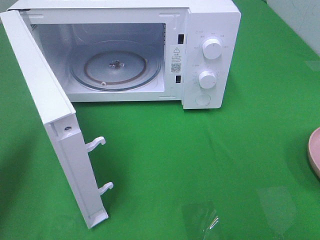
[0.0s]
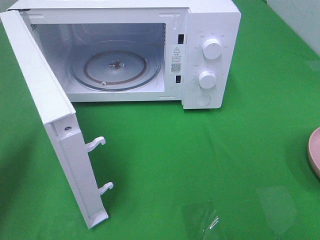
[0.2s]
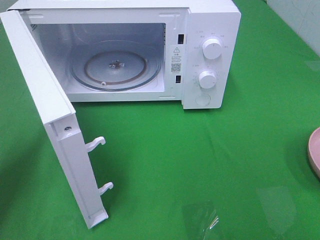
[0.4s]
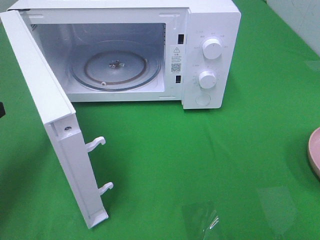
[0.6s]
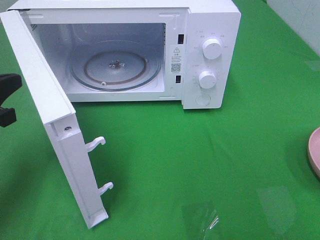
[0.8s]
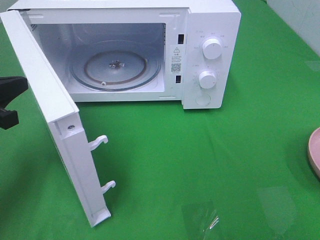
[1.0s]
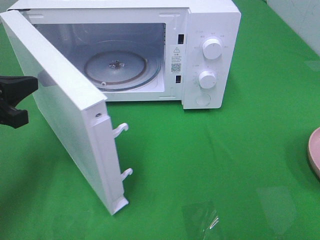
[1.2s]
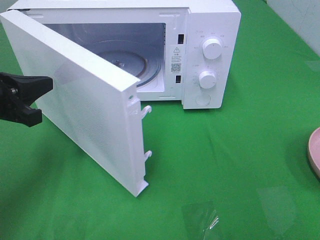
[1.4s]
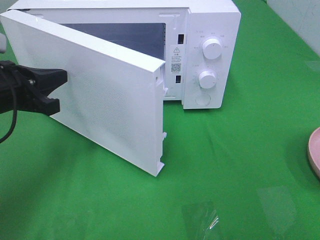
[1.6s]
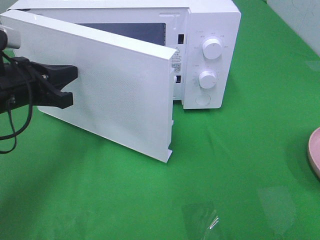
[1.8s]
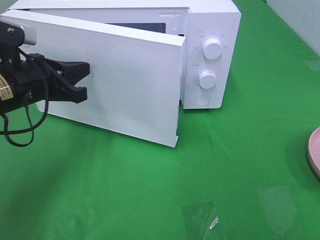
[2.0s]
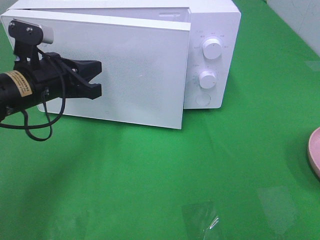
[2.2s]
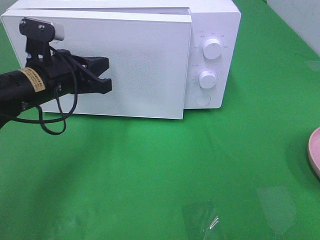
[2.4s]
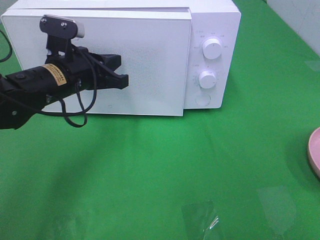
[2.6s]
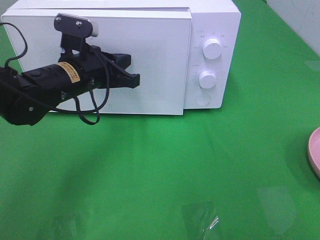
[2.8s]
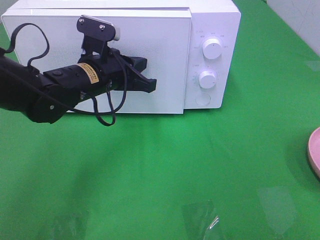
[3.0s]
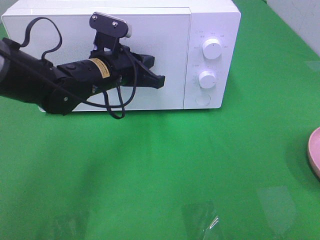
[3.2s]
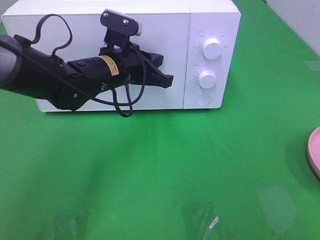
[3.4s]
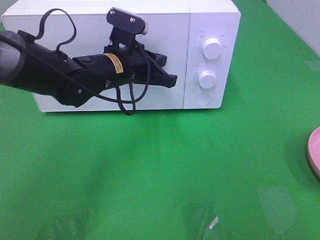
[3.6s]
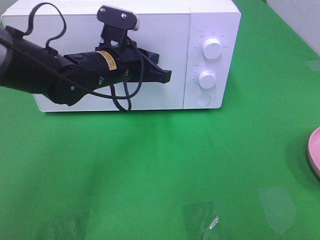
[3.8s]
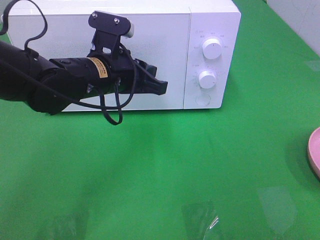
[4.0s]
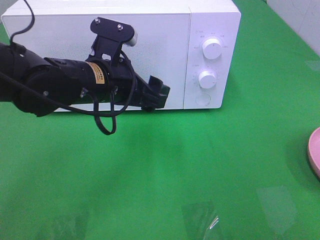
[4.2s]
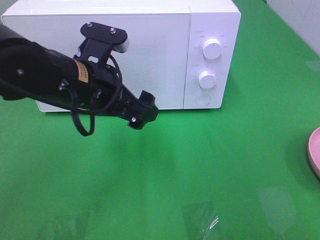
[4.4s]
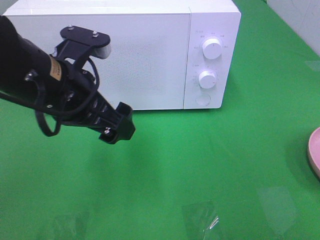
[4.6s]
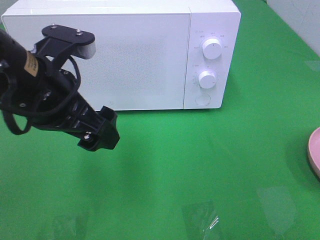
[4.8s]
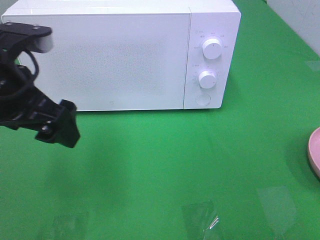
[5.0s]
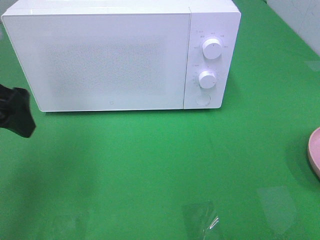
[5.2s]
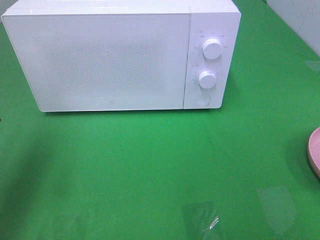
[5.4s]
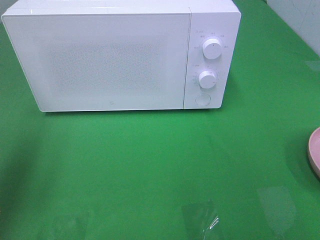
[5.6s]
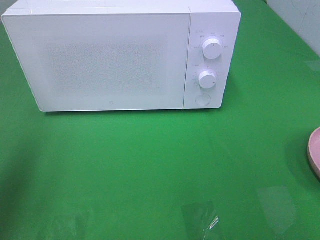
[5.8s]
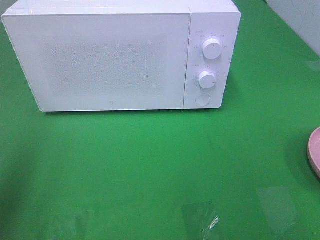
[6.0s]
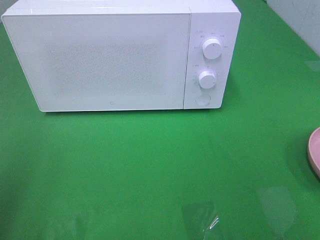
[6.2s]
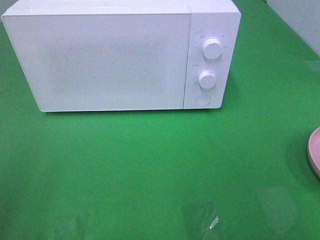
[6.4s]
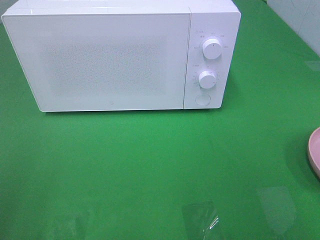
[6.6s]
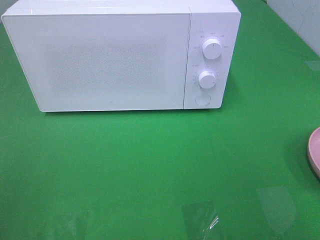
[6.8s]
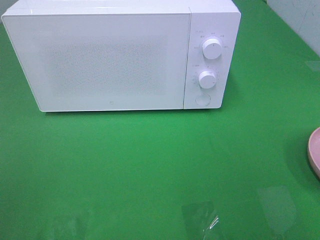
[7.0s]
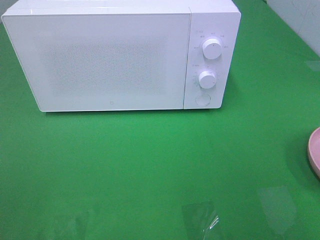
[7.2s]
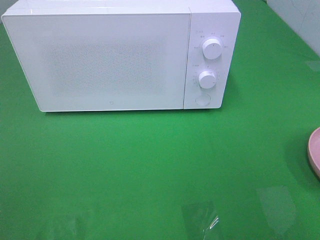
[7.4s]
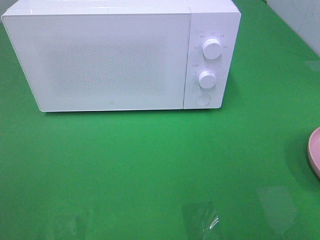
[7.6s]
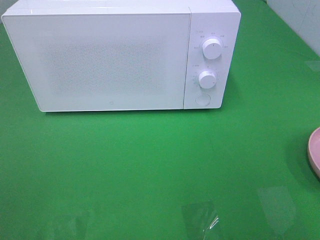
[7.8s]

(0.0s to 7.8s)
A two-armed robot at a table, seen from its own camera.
Task of the whole recording: Heat the burger.
Step, 0.0s - 3.8s: Left hand: close the microwave door.
0.0s - 1.6s: The left gripper goes about 10 cm to the right.
1.6s - 3.2s: The left gripper goes roughly 15 cm to the right and forward.
3.2s - 4.6s: The left gripper is displaced backward and upward by some 15 cm, and opens.
4.6s - 6.2s: The left gripper is displaced to the left and backward by about 25 cm.

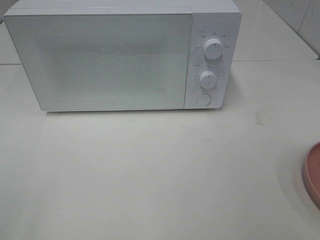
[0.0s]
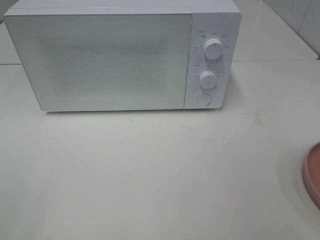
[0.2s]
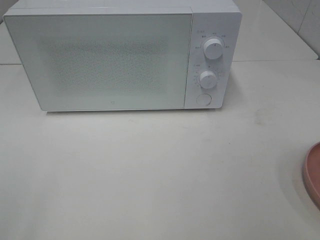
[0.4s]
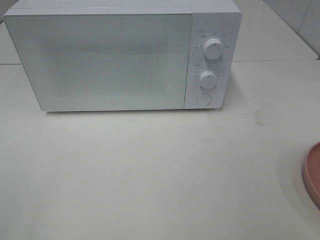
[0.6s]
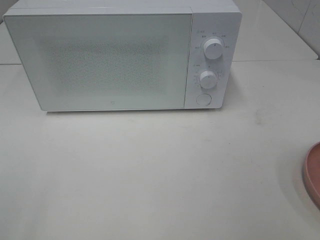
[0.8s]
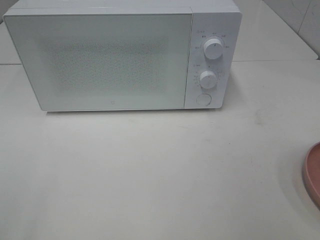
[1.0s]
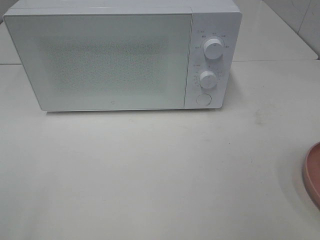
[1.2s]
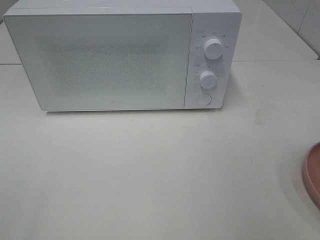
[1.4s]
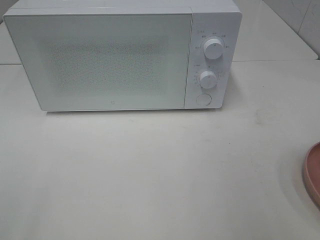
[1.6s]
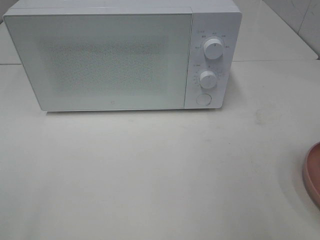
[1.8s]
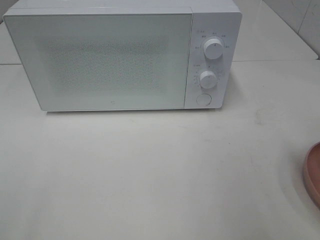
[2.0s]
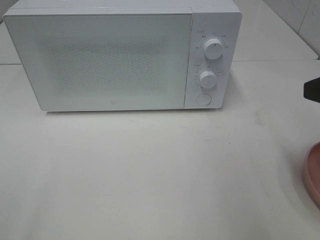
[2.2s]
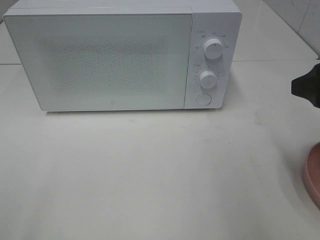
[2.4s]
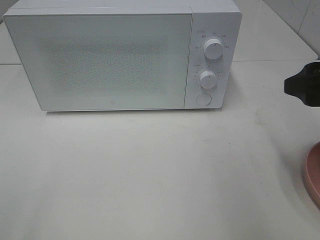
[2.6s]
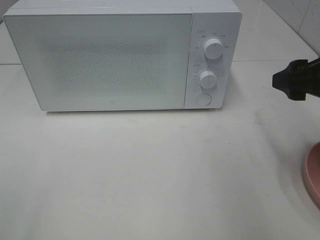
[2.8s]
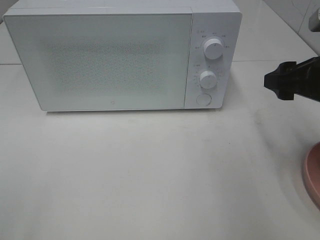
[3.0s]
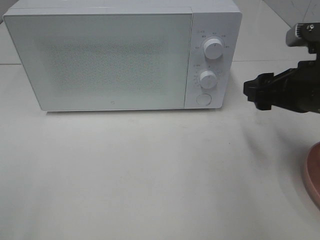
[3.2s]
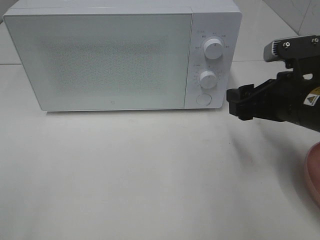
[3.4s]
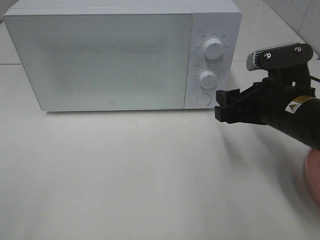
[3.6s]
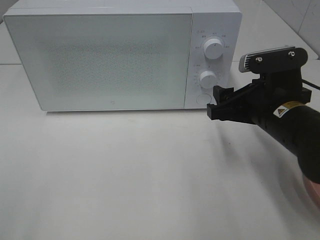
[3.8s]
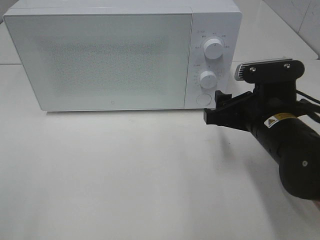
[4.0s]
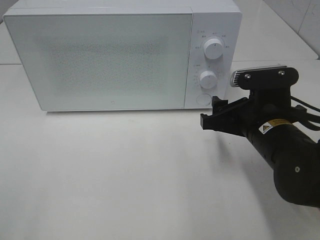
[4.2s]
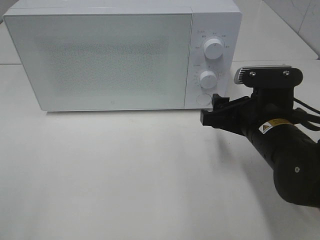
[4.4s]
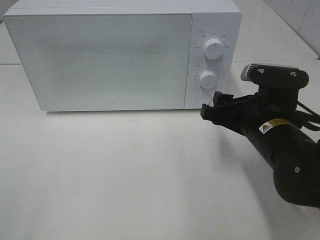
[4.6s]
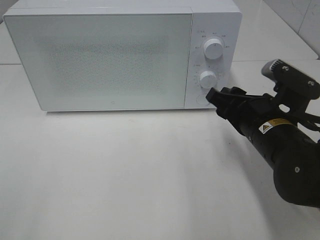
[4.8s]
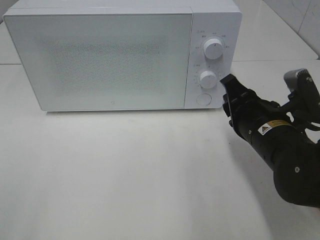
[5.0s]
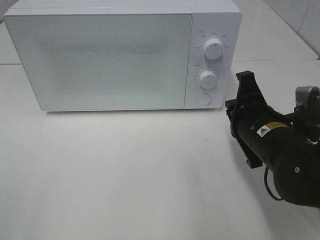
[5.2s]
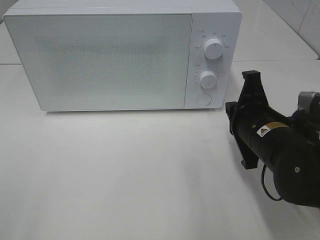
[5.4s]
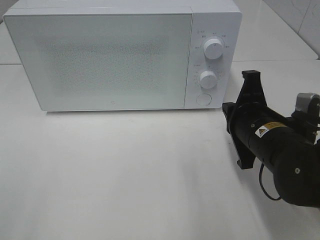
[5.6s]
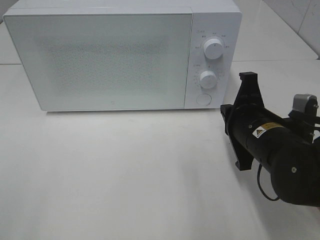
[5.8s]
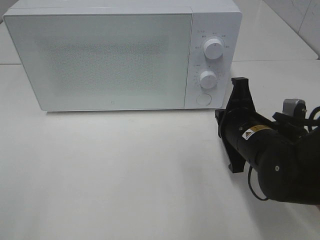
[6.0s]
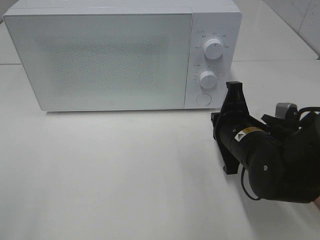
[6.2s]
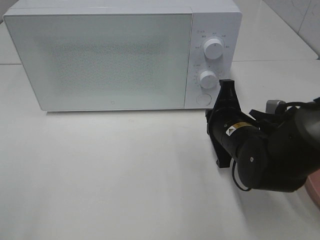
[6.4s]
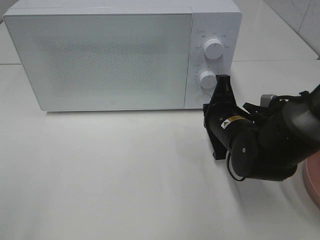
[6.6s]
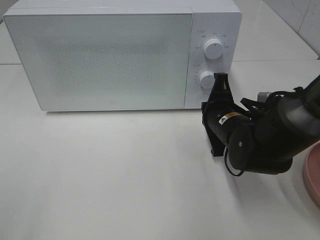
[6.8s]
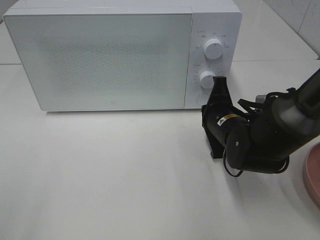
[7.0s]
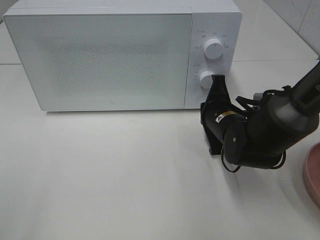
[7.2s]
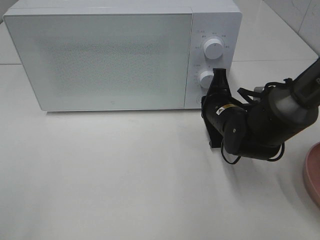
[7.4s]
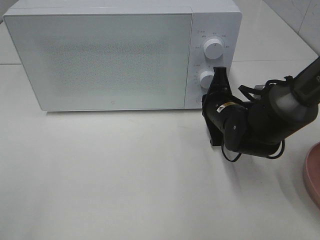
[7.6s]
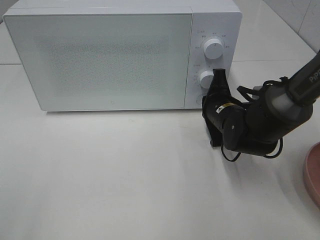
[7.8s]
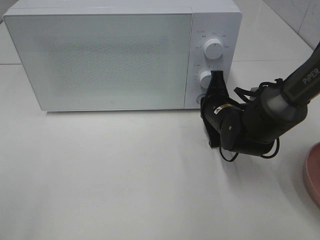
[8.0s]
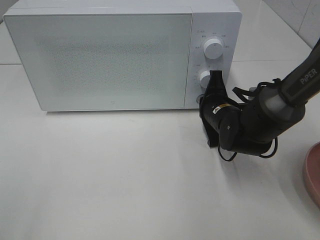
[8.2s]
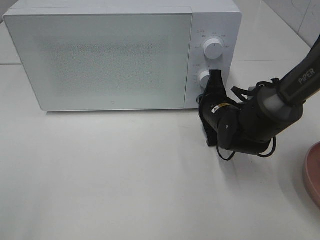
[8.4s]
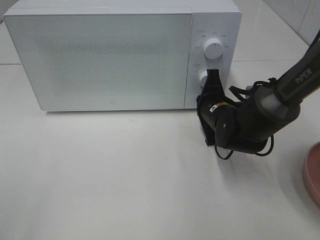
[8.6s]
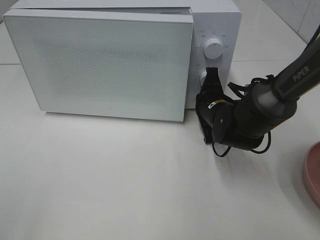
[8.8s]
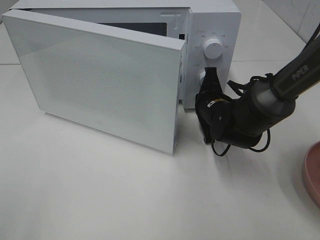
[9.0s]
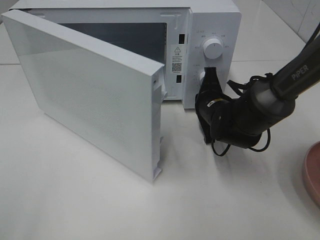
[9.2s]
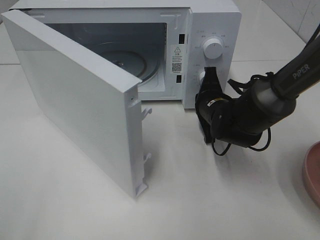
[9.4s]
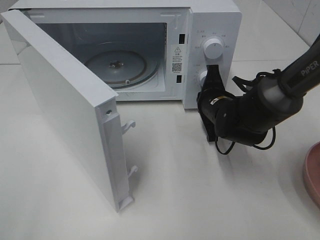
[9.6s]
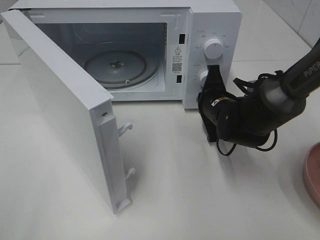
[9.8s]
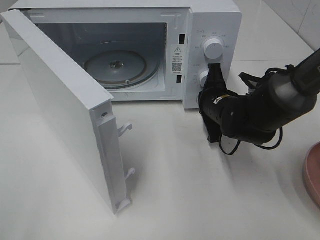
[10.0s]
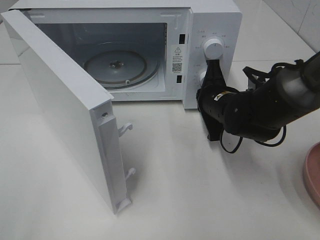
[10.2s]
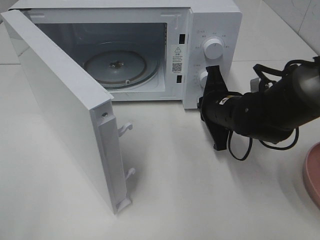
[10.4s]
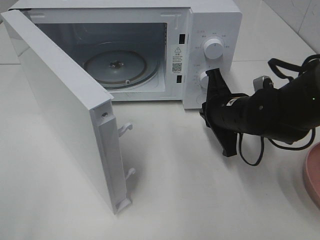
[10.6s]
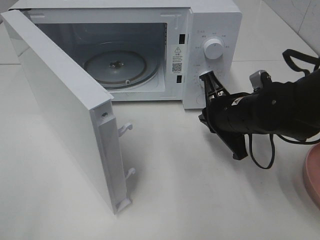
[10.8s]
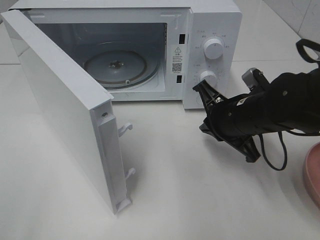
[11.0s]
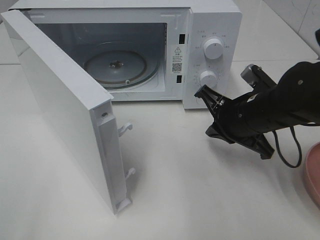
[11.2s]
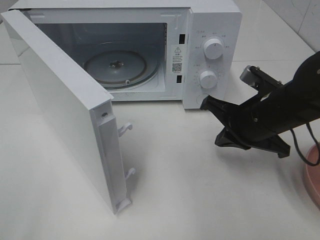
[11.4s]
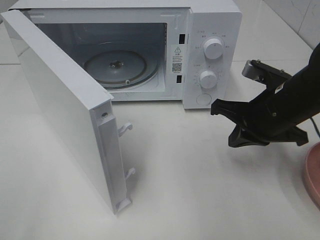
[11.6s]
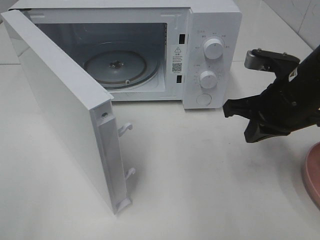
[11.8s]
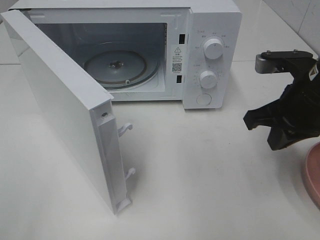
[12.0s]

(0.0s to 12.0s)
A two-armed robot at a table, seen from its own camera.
Task of the whole recording: Heat the burger.
Step, 0.0s - 10.0s: Right hand: press the switch.
1.6s - 3.0s: The right gripper is displaced forward and downward by roughly 15 cm.
3.0s - 4.4s: The right gripper heads to the left and downward, covering approximately 10 cm.
4.4s - 6.0s: The right gripper closes its fingers.
6.0s - 7.6s: The right gripper heads forward, covering roughly 10 cm.
7.6s - 9.0s: The grippers move only a little.
9.0s - 10.4s: The right gripper changes place by roughly 5 cm.
10.4s - 12.0s: The right gripper goes some 15 cm upward, to the right and backward.

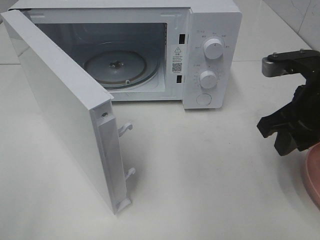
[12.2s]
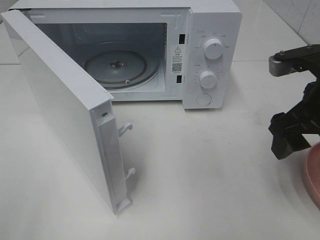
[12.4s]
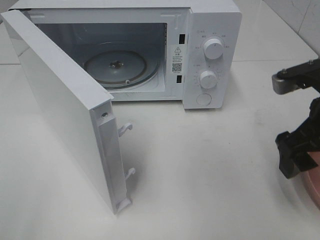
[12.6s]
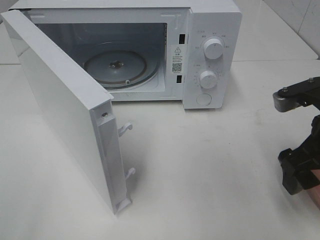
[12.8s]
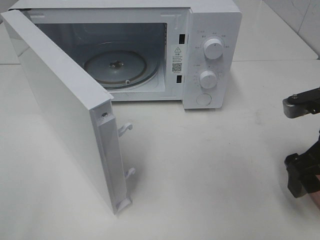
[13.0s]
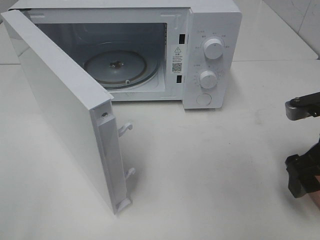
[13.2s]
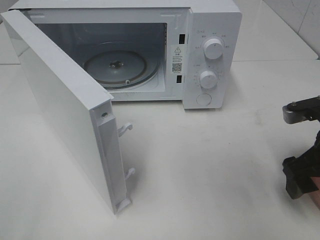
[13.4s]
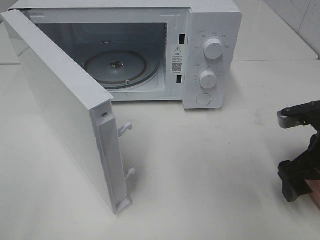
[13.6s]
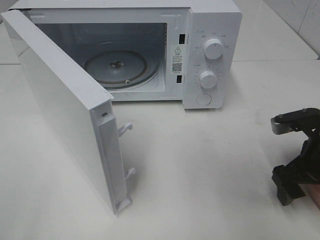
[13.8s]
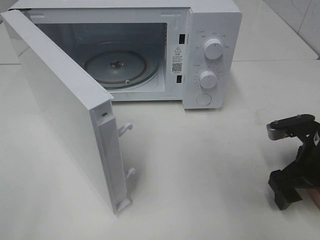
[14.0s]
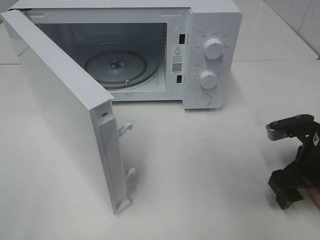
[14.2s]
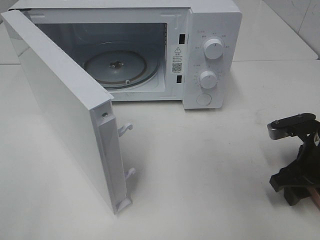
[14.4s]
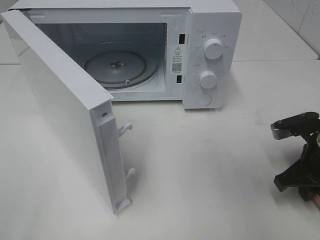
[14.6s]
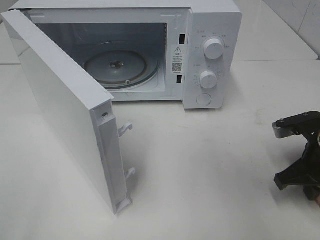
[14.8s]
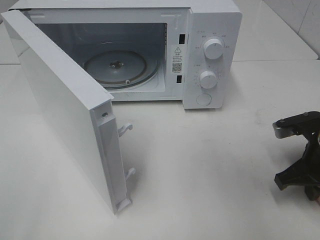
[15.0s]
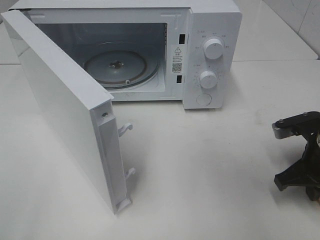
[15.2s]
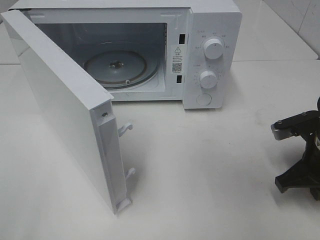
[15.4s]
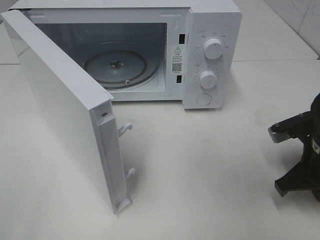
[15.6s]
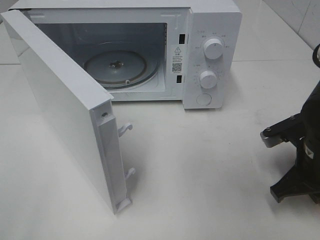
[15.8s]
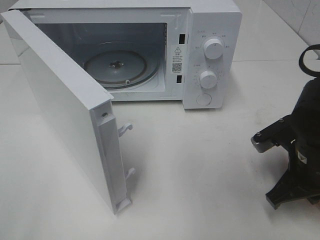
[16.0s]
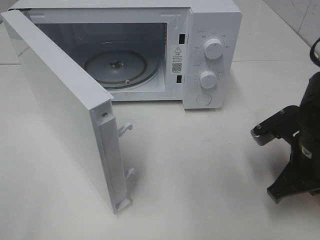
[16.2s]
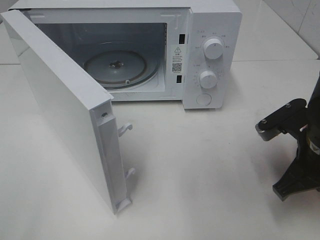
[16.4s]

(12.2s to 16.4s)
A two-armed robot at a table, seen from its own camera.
Task of the whole recording: Heat the burger.
Step, 12.2s - 14.8s: Right hand: grab the plate with the hamburger.
12.2s - 13.6s: The right gripper is displaced downward by some 10 cm, and opens.
13.6s - 15.0s: The right gripper closes.
15.0s - 16.4s: The right gripper moves some 5 cm.
